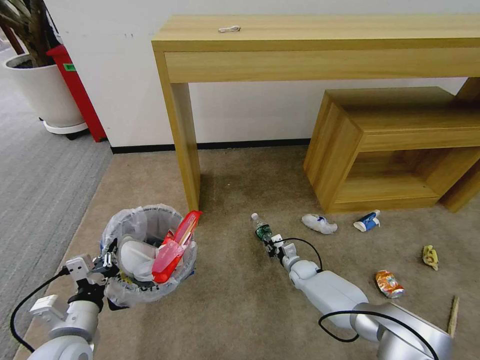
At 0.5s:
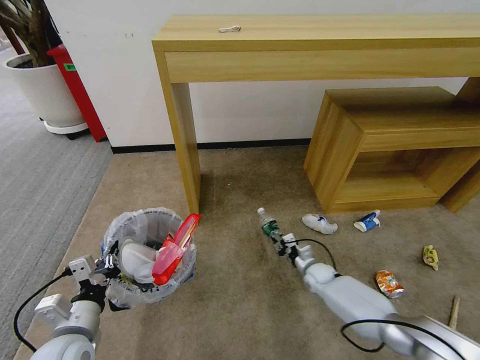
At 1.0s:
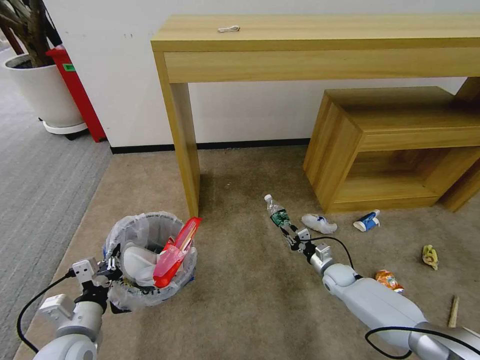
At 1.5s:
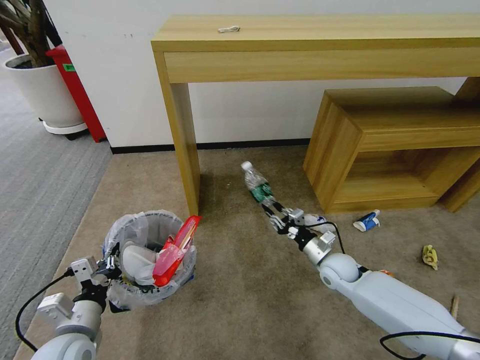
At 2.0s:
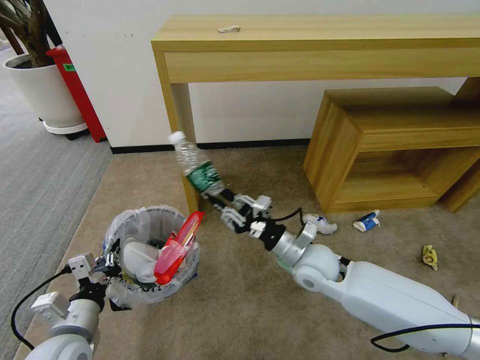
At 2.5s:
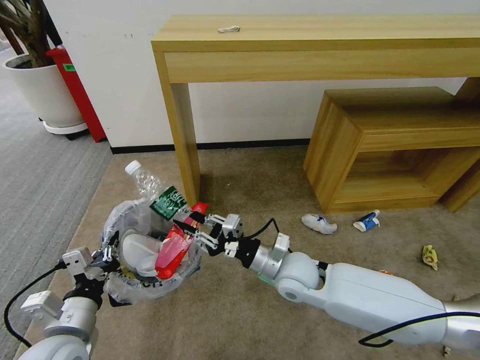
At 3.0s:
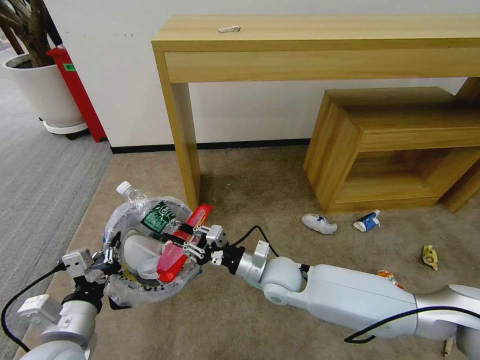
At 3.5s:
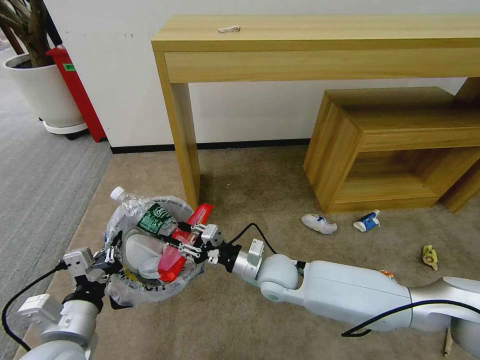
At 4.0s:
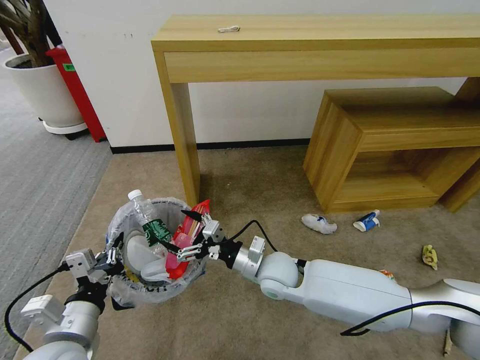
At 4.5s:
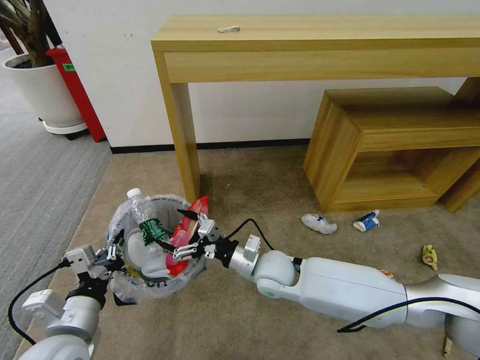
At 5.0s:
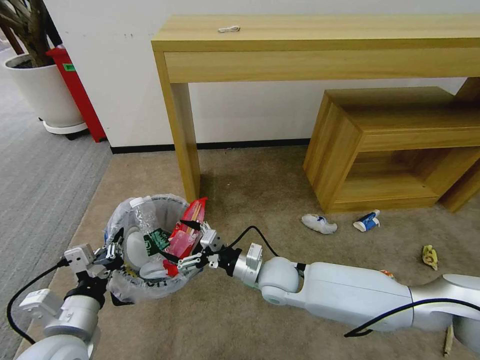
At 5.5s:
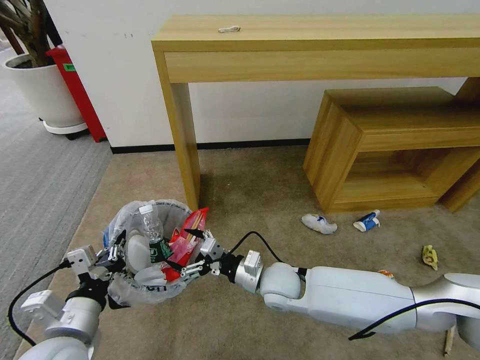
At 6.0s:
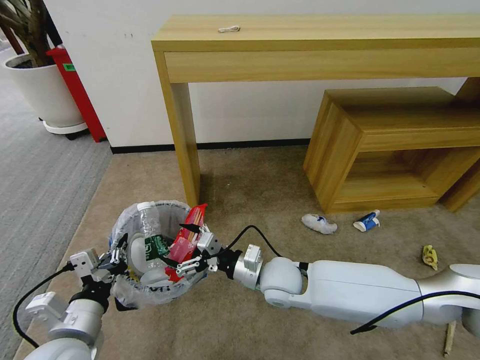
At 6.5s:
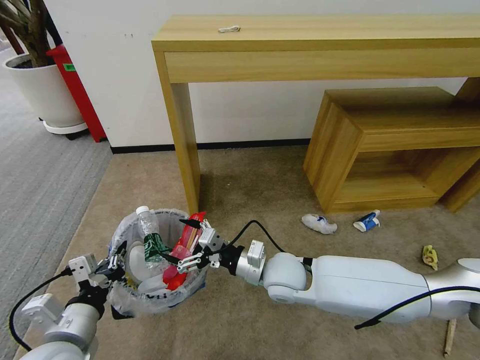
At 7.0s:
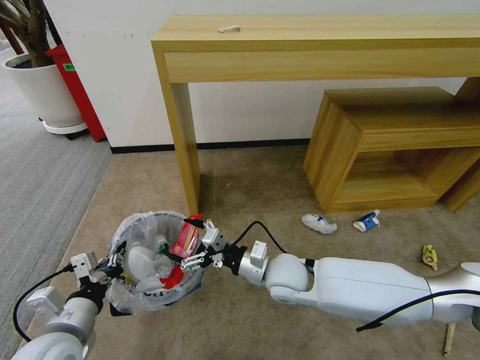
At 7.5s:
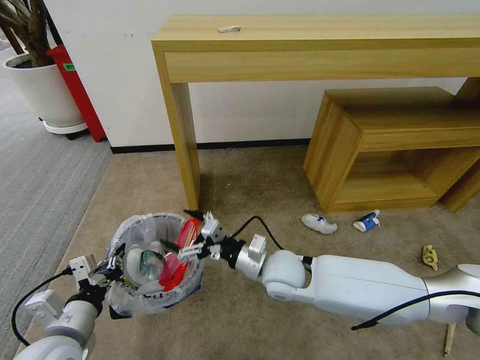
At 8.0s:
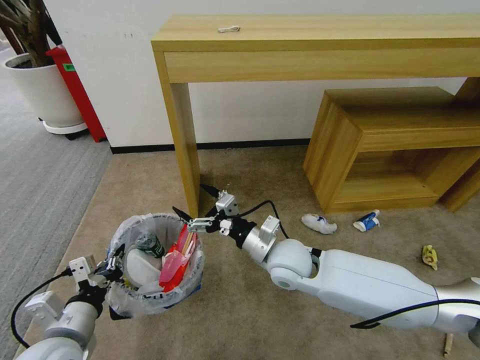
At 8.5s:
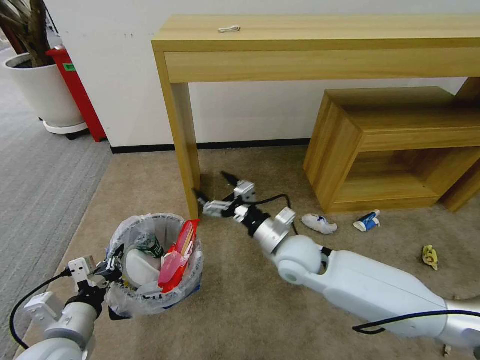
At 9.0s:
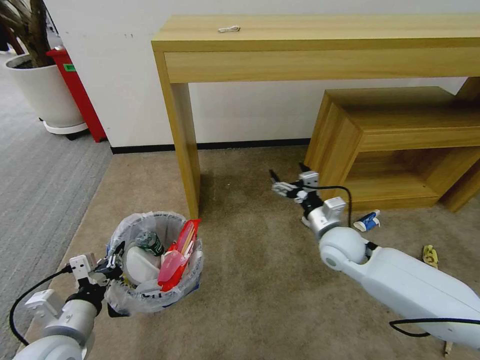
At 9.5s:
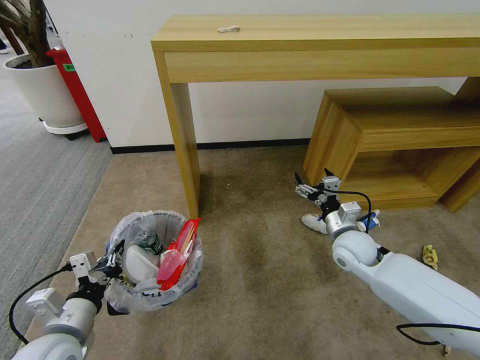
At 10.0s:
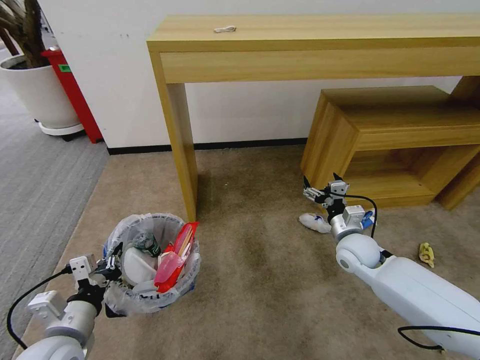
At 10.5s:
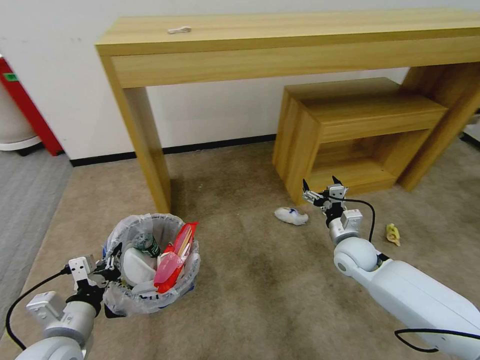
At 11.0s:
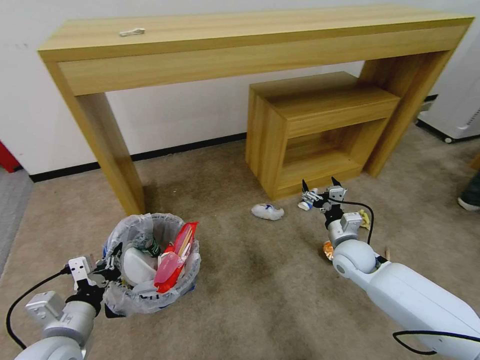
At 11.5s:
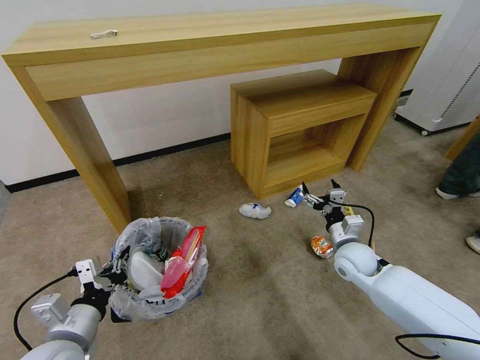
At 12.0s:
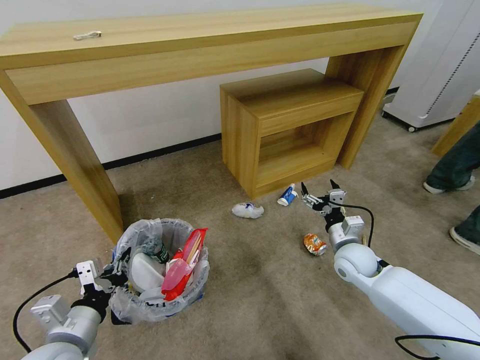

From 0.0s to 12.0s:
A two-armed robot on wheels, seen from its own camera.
Task of the whole recording: Pick up the trash bin and place the garbage on the floor into it.
From 0.0s to 2.0s: The right gripper shifts some 30 cm upward and backward.
From 2.0s to 4.0s: The right gripper shifts roughly 10 cm to the left, and opens.
From 4.0s to 6.0s: The grippers stay close to where they were, moving slightly.
From 6.0s to 8.0s: The right gripper ends up roughly 5 cm from where it was.
From 8.0s to 10.0s: The right gripper moves to the right, roughly 20 cm.

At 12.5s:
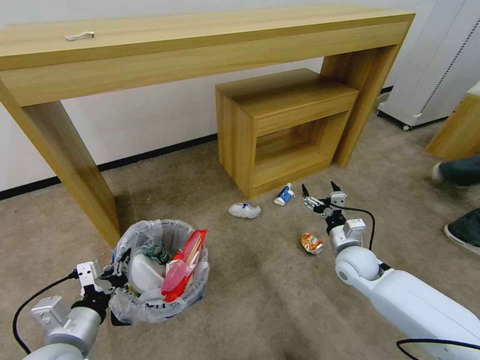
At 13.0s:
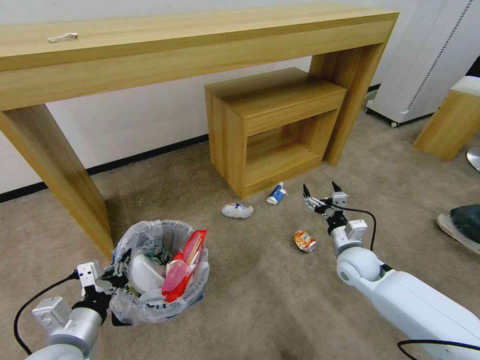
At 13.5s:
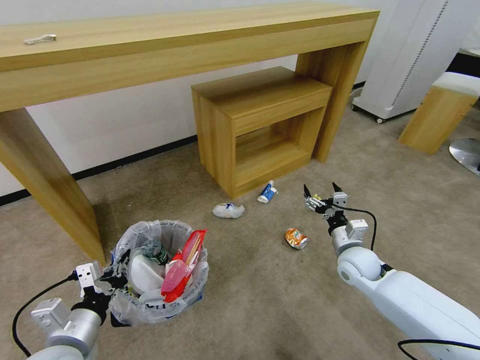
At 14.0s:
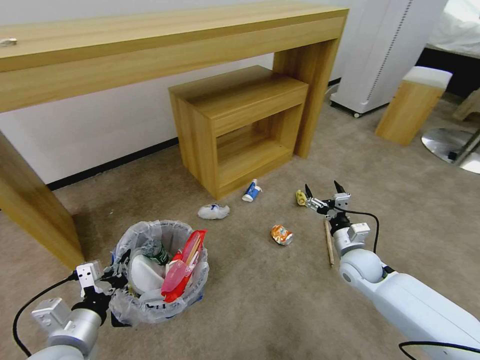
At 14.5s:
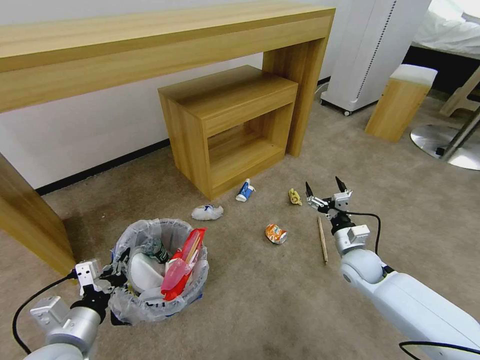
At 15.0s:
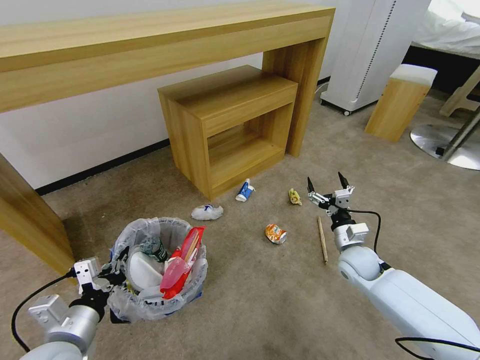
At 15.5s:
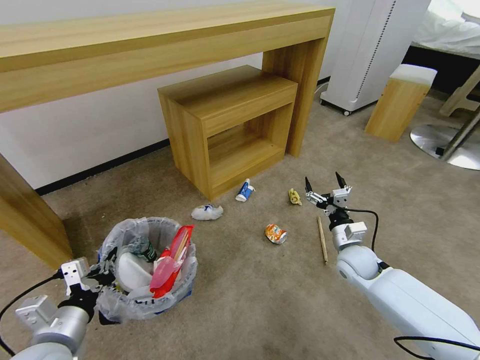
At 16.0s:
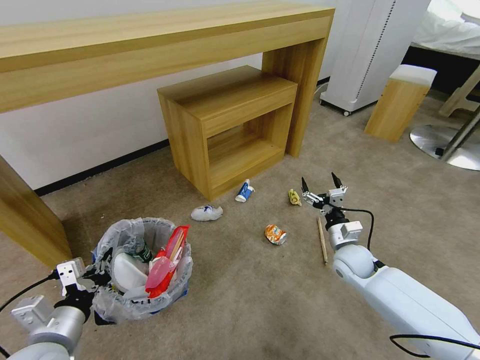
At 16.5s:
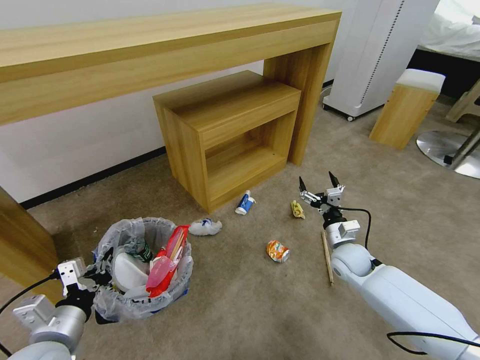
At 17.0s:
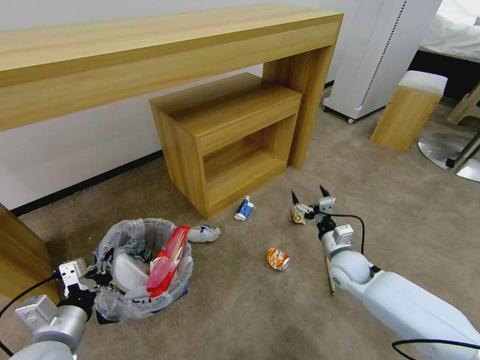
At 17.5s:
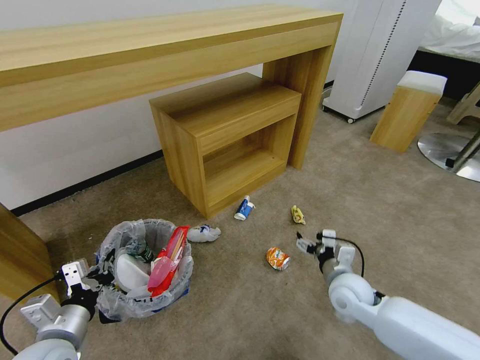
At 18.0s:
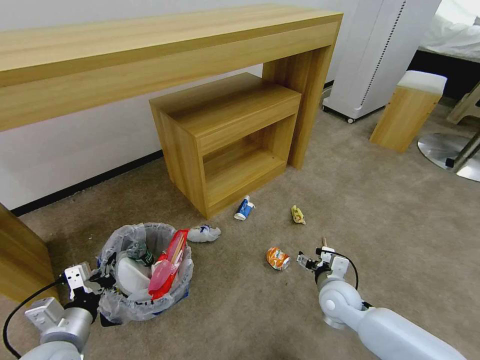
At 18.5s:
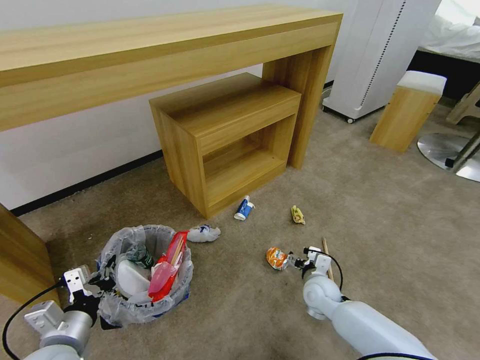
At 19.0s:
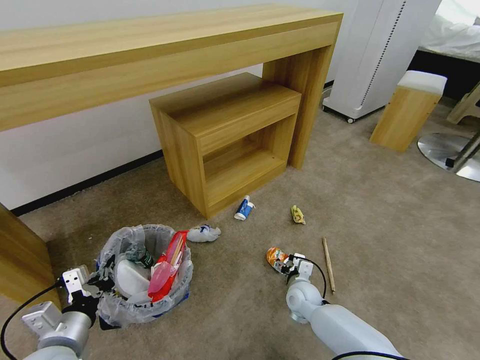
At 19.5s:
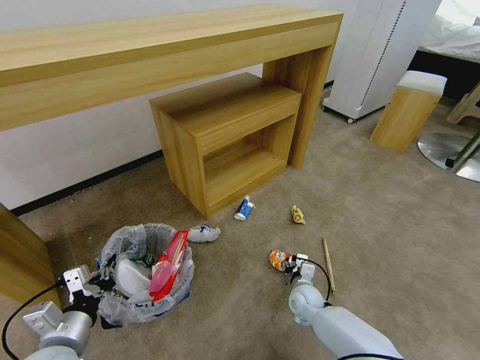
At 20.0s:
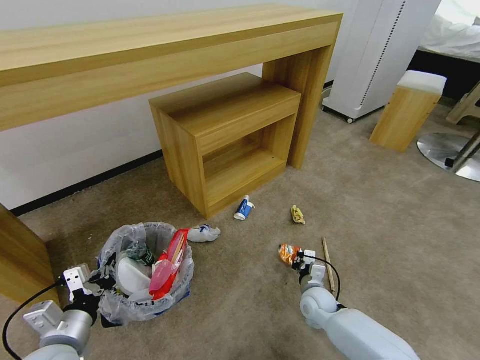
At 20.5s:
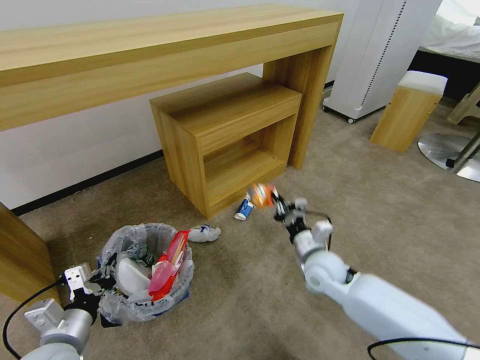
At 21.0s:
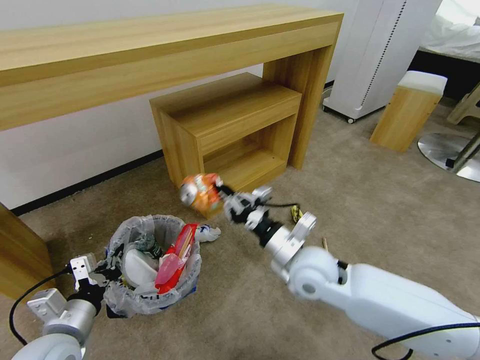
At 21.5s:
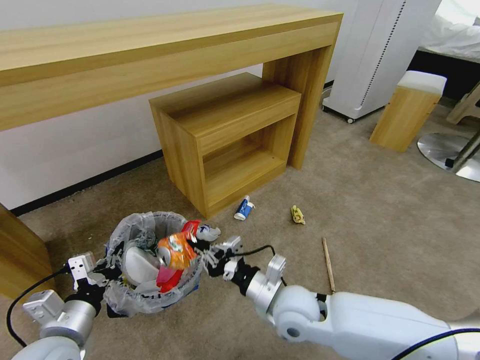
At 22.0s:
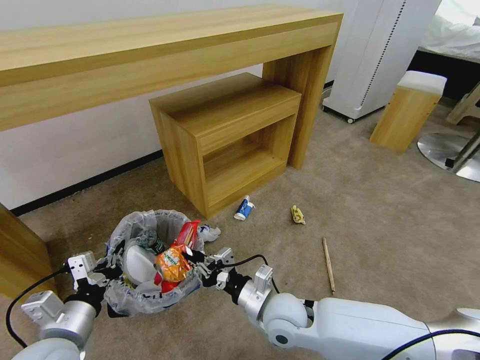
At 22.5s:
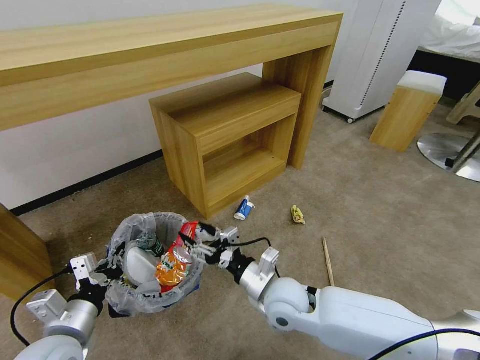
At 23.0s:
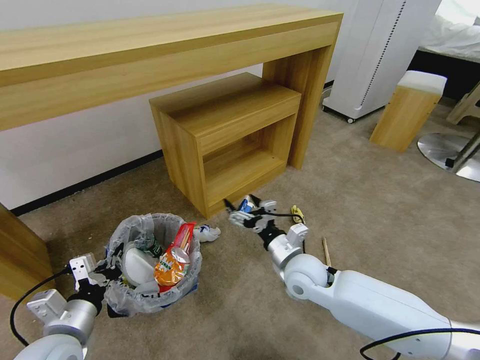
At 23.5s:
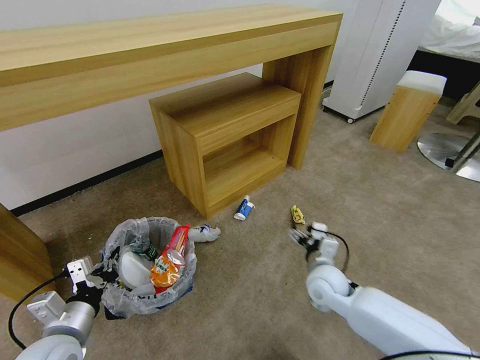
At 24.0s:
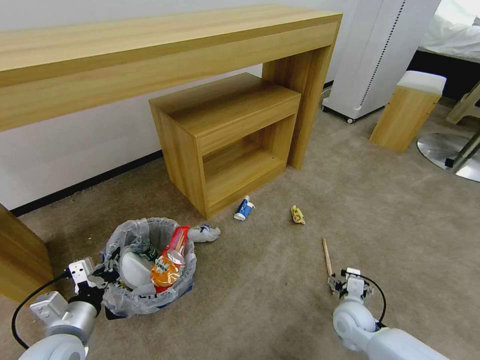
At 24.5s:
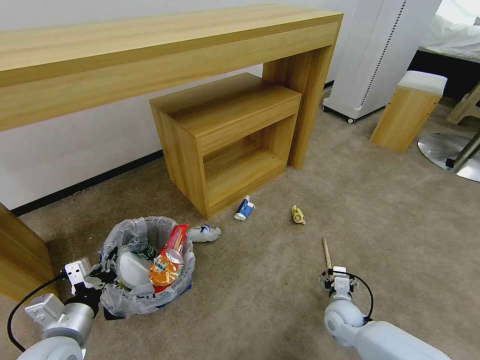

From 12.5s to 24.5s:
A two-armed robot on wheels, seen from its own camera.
Task of the whole recording: Pick up the trash bin and place the garbage on the floor into it.
From 16.5s to 18.5s: The right gripper travels downward, to the left and backward by approximately 10 cm.
From 18.5s to 20.5s: The right gripper is displaced upward by roughly 10 cm, and closes.
From 20.5s to 22.5s: The right gripper heads to the left and backward, covering about 15 cm, and opens up.
From 22.5s to 24.5s: The right gripper travels to the right and downward by roughly 25 cm.

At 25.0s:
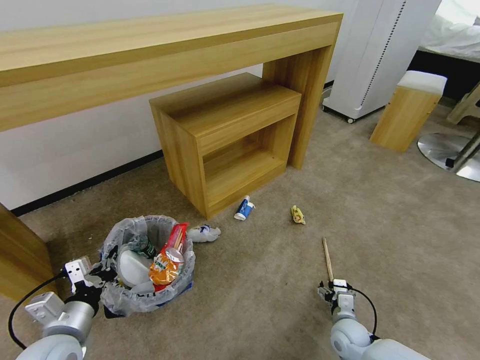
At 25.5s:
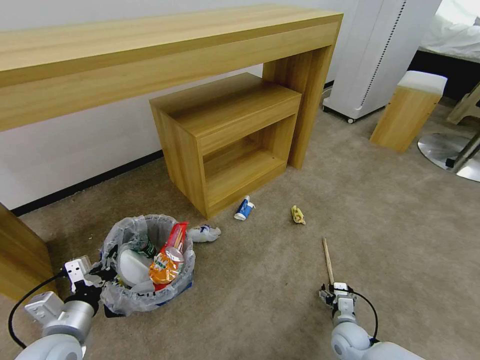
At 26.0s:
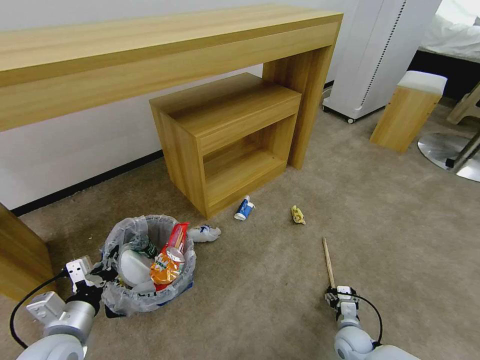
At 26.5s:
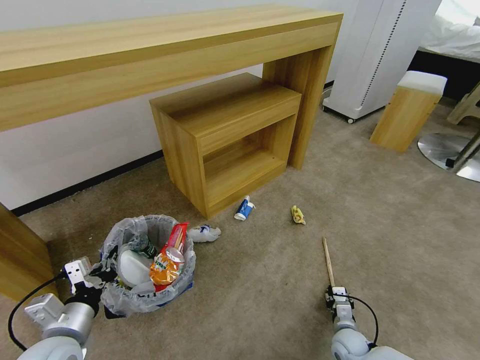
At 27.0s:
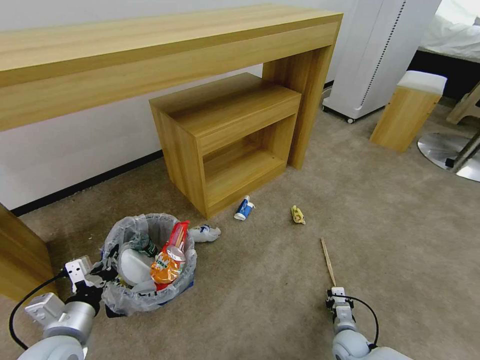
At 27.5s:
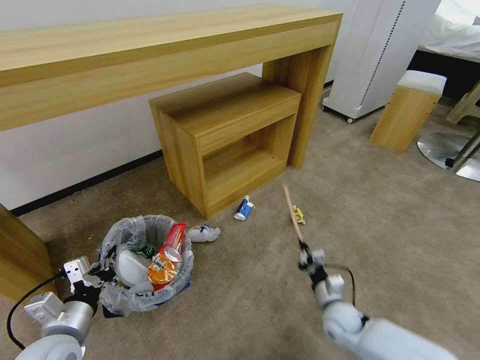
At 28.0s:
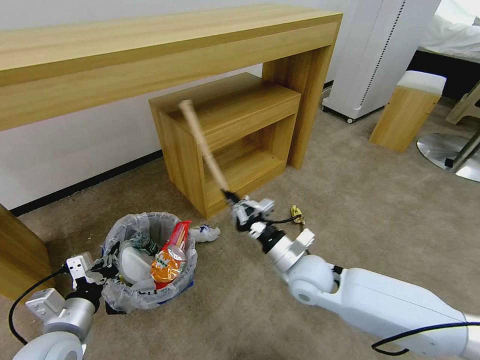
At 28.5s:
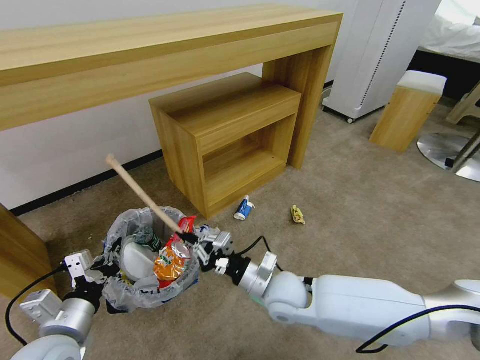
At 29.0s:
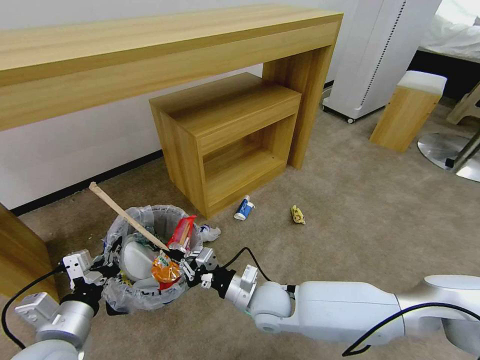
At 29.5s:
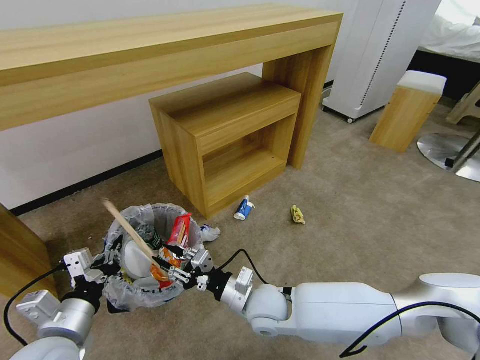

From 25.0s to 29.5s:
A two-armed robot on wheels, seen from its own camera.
Task of the whole recording: Pick up the trash bin and place the garbage on the floor into it.
From 25.0s to 27.0s: The right gripper ends up some 5 cm from where it was, and closes.
From 27.0s to 29.5s: The right gripper is displaced to the left and upward by some 35 cm.
